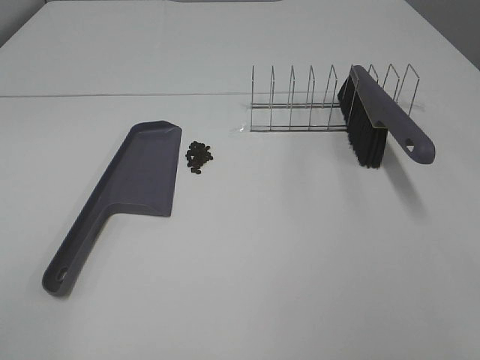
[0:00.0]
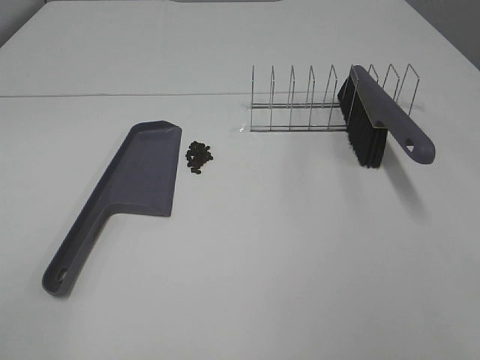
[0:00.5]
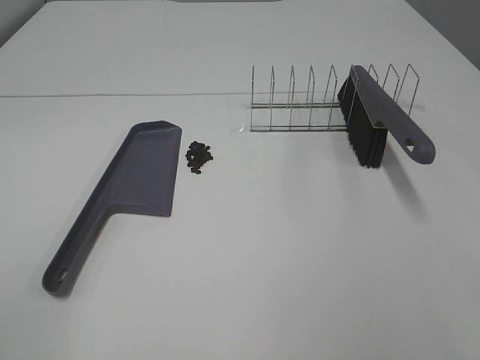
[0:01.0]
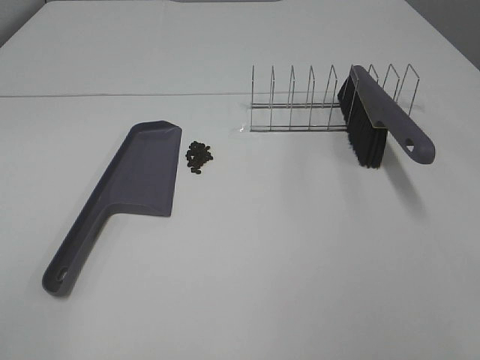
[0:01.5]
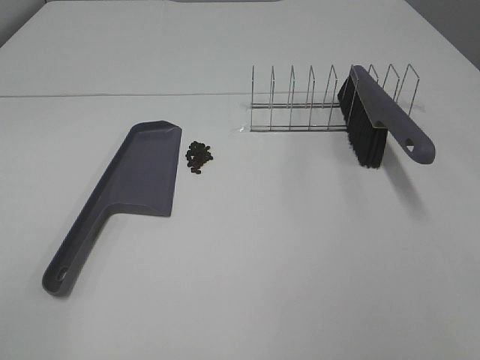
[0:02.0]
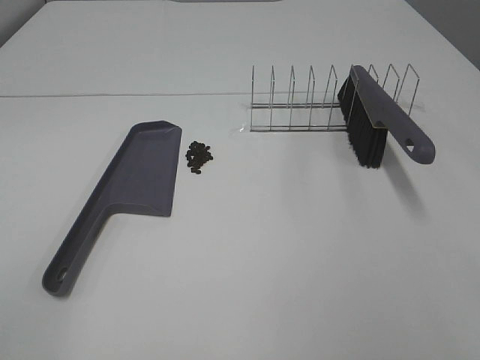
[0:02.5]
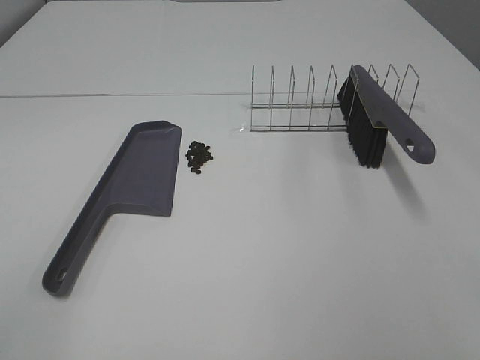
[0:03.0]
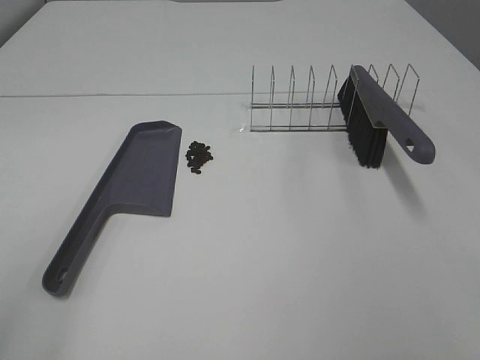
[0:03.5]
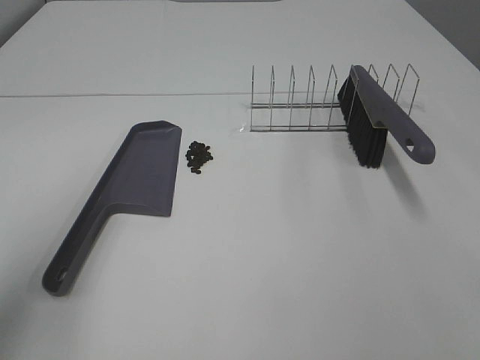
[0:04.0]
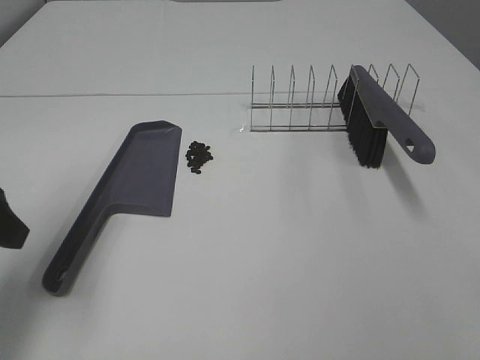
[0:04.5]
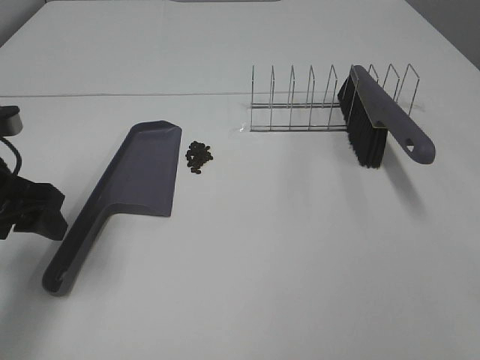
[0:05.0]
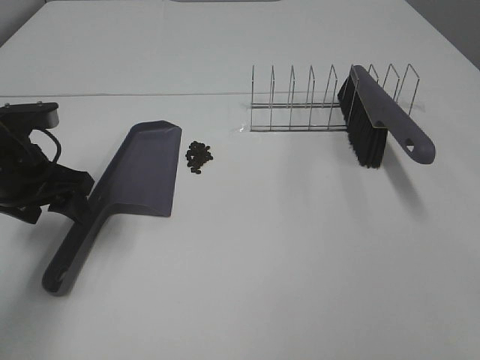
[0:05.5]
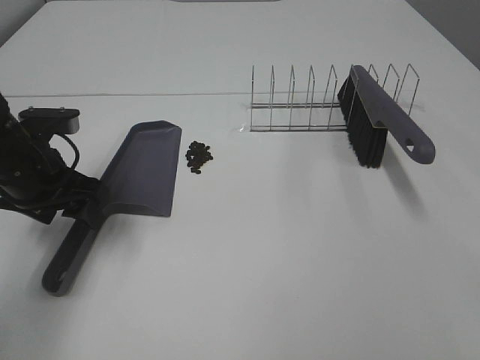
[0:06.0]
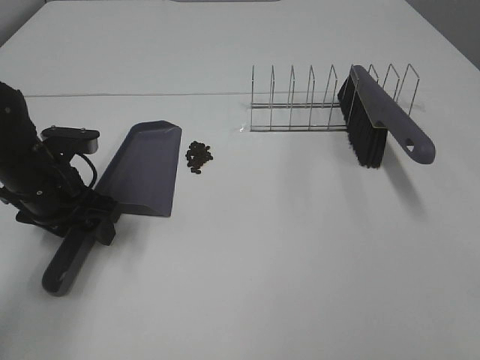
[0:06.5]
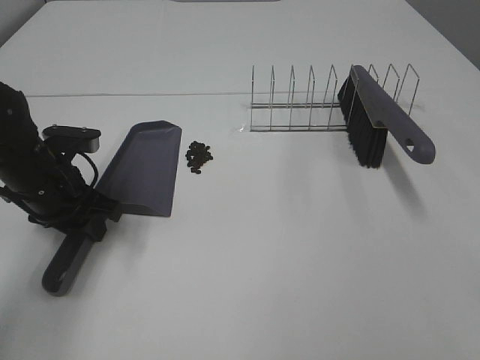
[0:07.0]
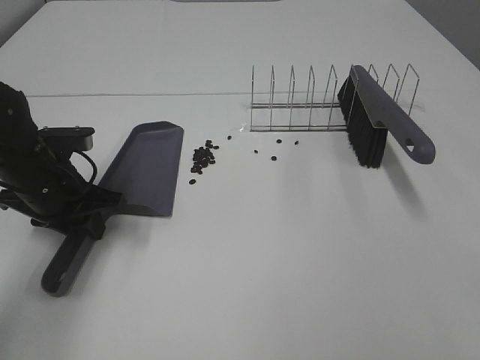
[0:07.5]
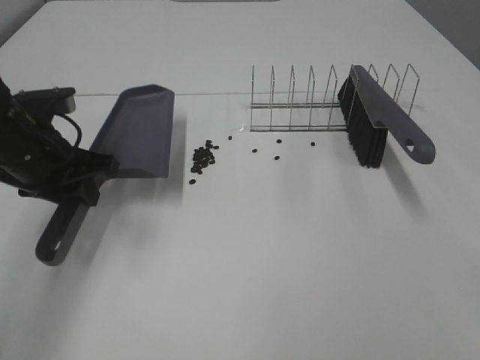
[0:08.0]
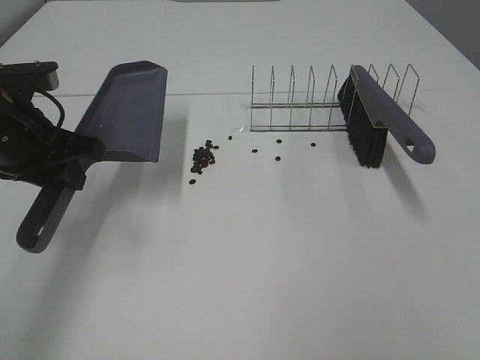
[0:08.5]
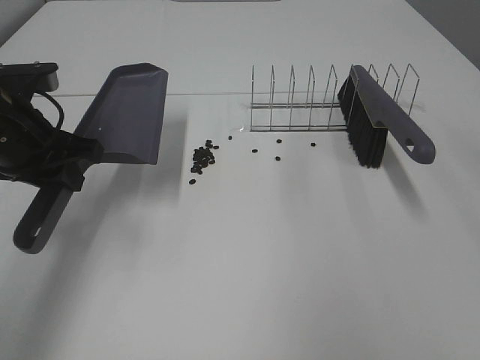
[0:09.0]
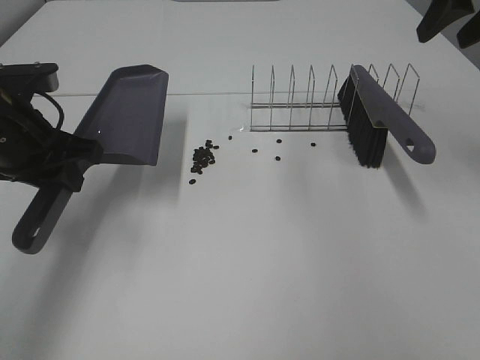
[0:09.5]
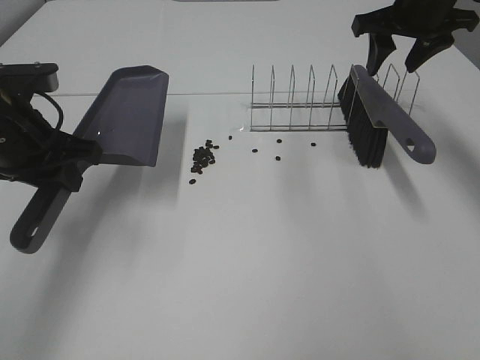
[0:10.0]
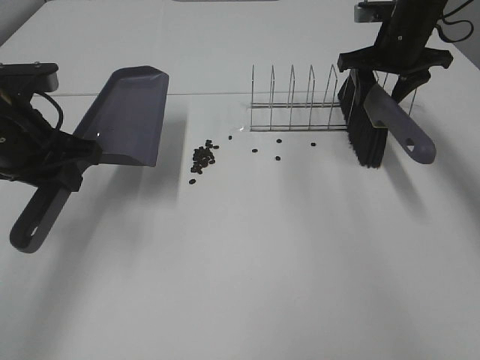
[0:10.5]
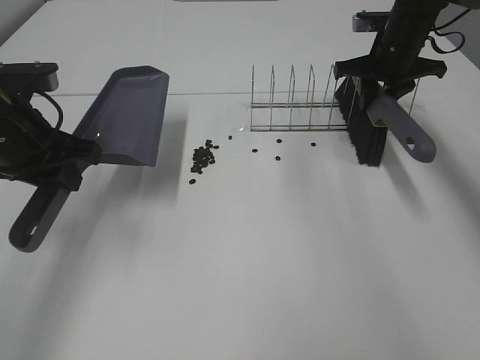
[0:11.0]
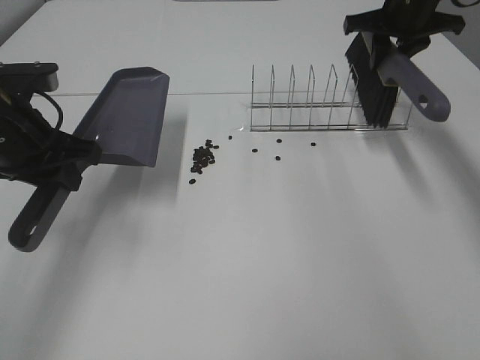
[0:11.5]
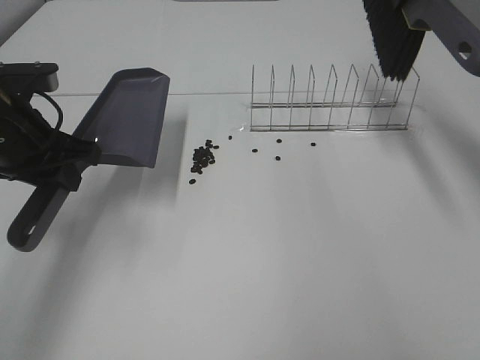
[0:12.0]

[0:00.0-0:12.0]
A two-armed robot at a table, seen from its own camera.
Task of the whole recording: Sweep Coffee Bean.
Step, 0:00.0 to 0:06.5: Left hand: grab the dustpan.
Step, 0:08.5 to 0:11.0: Right hand:grab the broom.
0:00.0 to 0:02.0: Neither gripper changes place.
0:02.0 to 0:04.0: The left gripper travels forward by some 15 cm.
0:04.0 to 0:06.0: The left gripper moves forward and downward, some 25 cm.
0:06.0 to 0:08.0: The left gripper closes its fingers.
0:08.0 to 0:10.0: The right gripper goes roughly 50 cm forward, and closes up.
0:10.0 to 0:12.0: The right gripper heads upward, covering roughly 10 cm, and closes up.

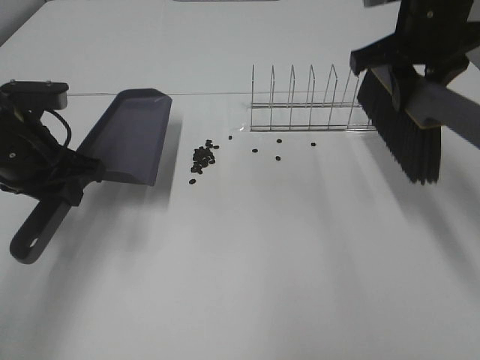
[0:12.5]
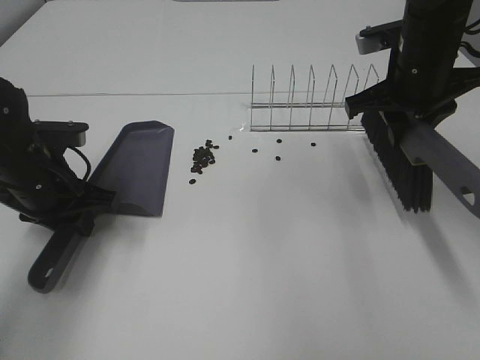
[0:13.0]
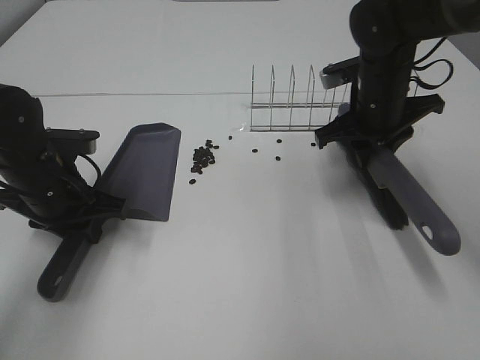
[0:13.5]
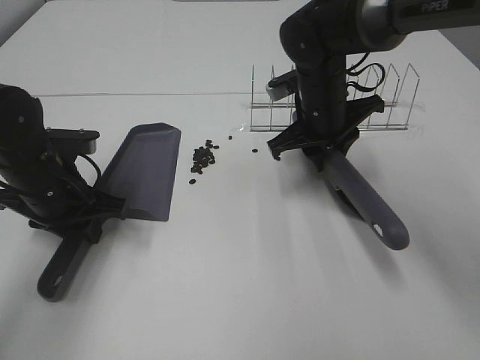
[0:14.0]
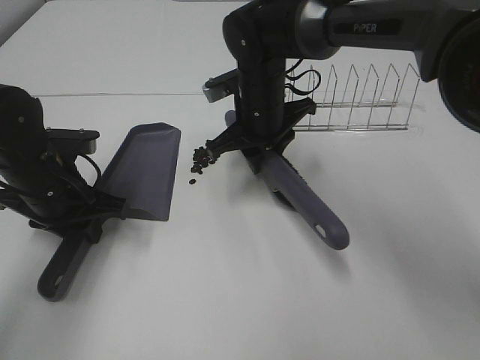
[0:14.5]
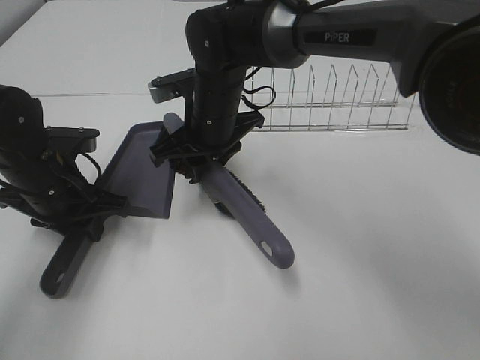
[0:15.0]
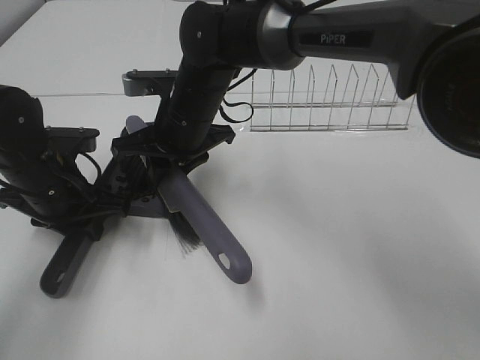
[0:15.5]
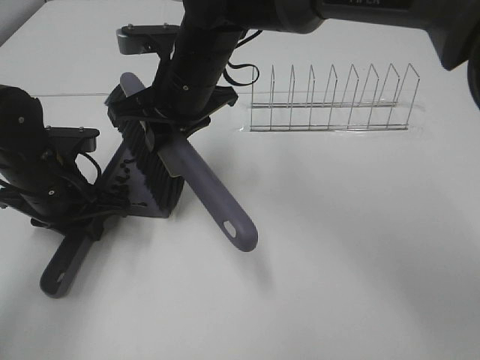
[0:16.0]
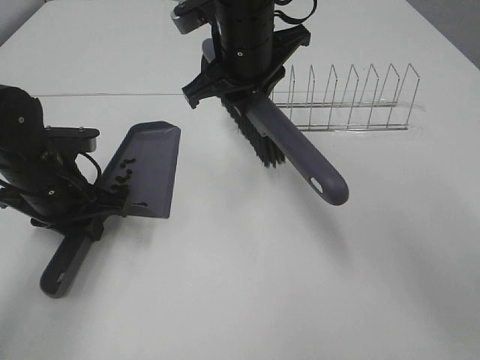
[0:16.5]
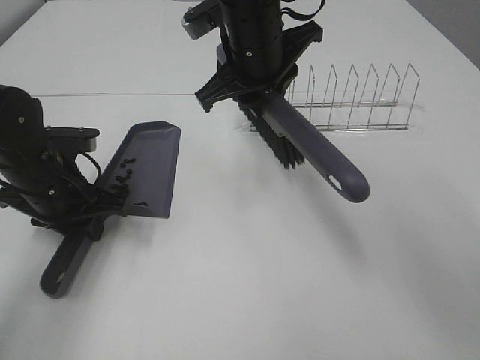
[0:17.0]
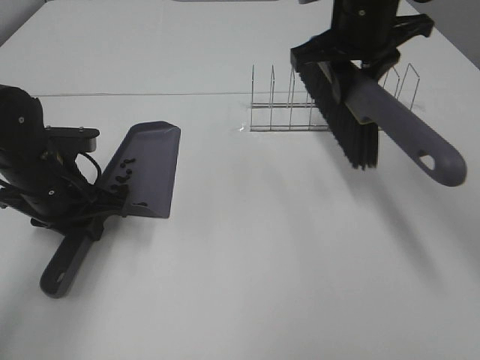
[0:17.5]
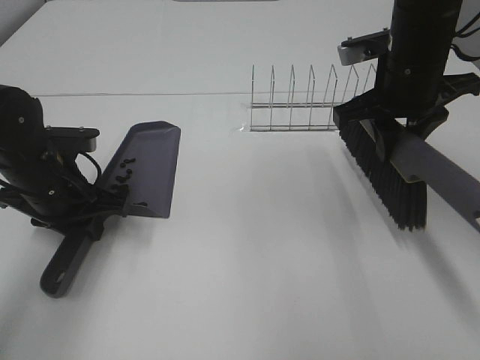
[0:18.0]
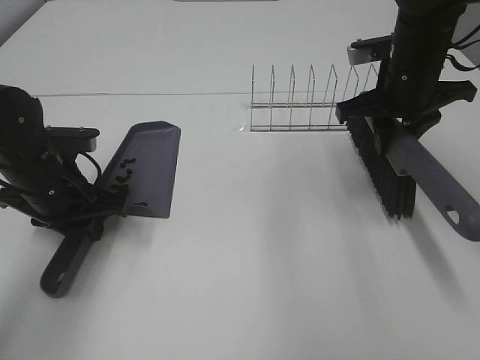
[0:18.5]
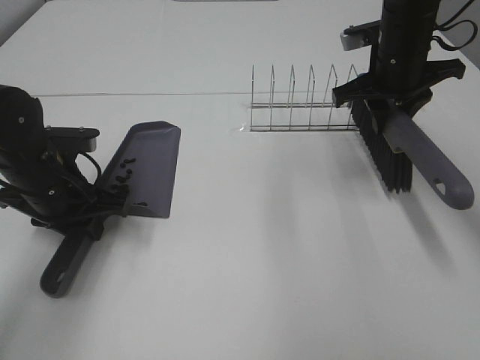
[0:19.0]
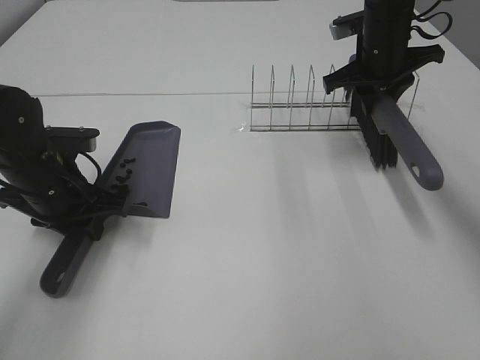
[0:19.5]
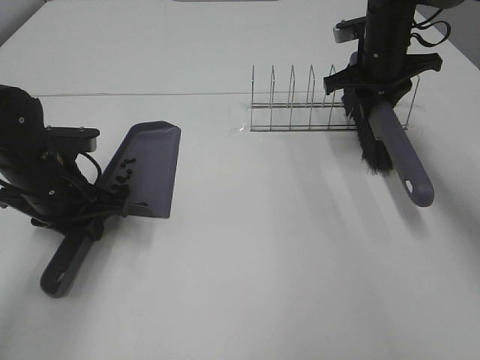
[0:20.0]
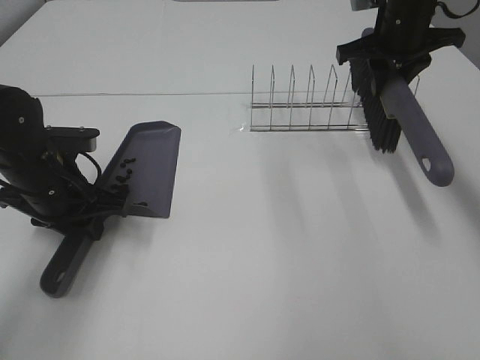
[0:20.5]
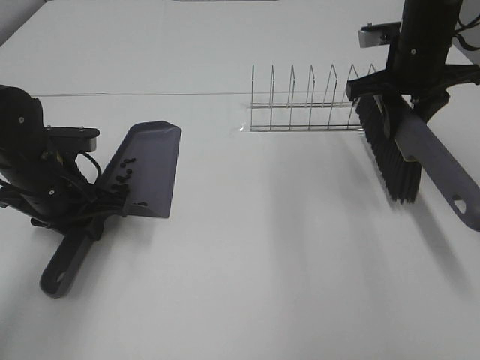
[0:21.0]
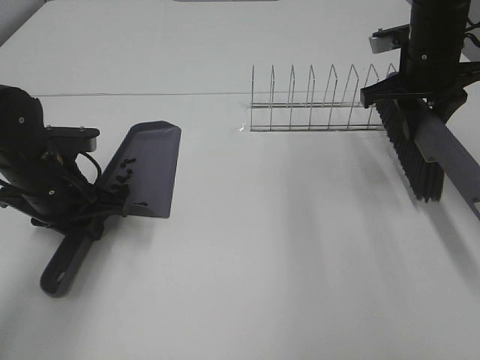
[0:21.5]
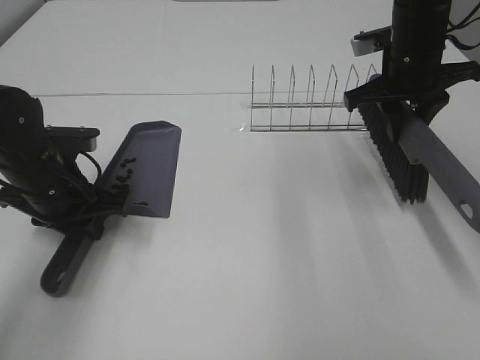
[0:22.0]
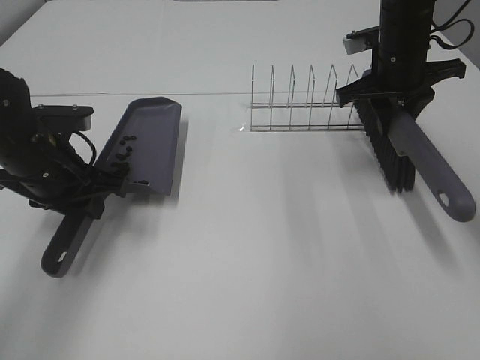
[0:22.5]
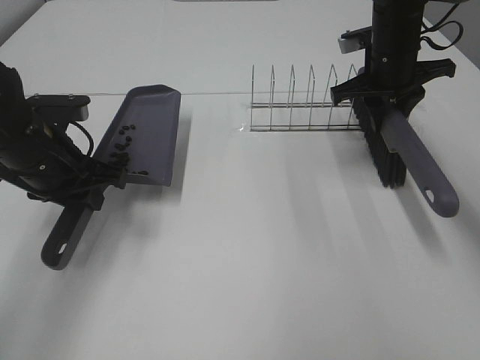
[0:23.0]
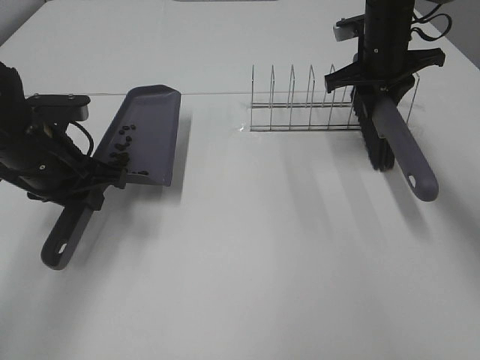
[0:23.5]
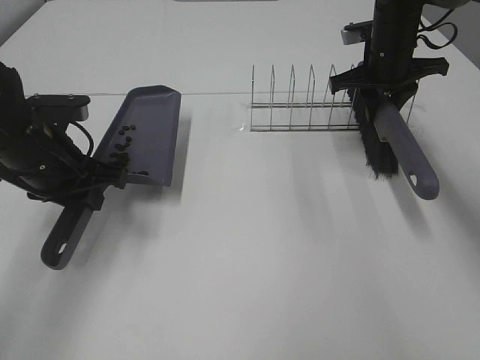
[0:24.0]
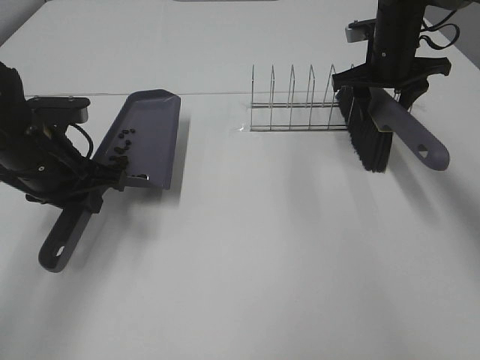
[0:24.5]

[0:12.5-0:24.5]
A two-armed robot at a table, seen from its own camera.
Task of the whole recording: Sweep Coffee Bean.
Step, 0:12.5 to 0:16.0: Right hand:sweep the coffee beans into the dustpan.
0:12.5 to 0:14.5: The left gripper is displaced downward by roughly 5 cm. Meanwhile the right gripper is displaced to the left and downward by roughly 20 cm.
0:14.5 to 0:16.5: The right gripper travels upward by roughly 10 cm.
0:16.5 to 0:18.5: The right gripper heads to the right, covering approximately 20 cm.
0:18.5 to 0:20.5: The right gripper goes some 10 cm forward.
0:20.5 to 0:22.5: The right gripper changes place by roughly 5 cm.
0:22.5 to 0:24.5: The right gripper moves approximately 5 cm, and opens up.

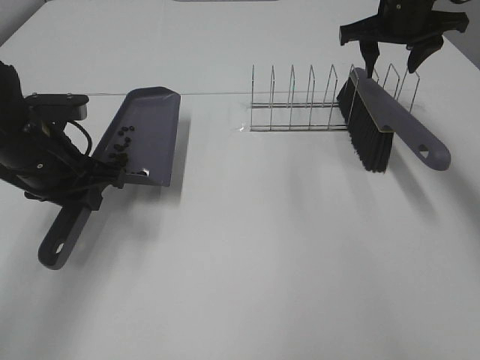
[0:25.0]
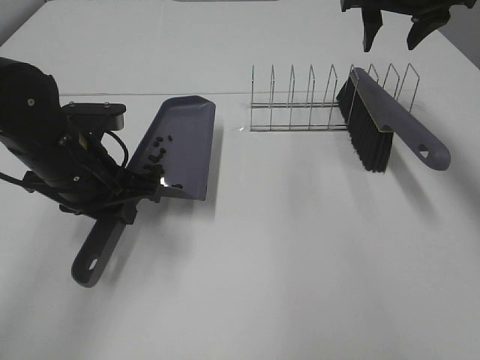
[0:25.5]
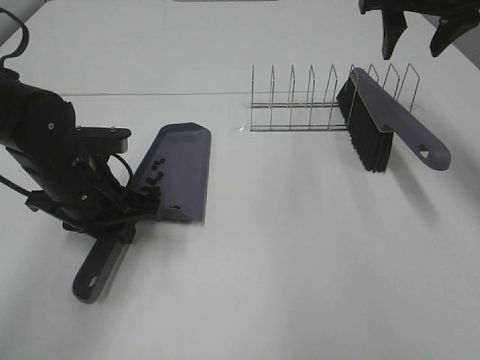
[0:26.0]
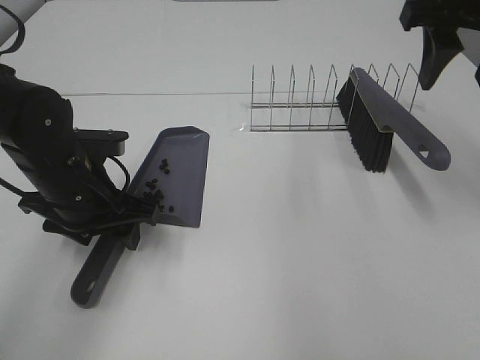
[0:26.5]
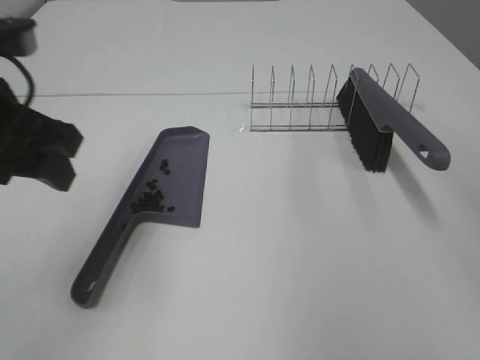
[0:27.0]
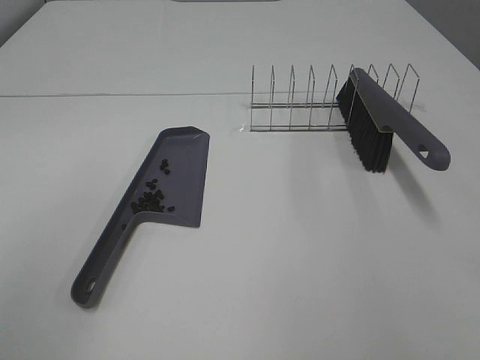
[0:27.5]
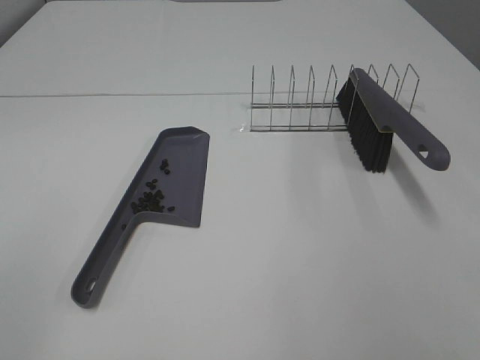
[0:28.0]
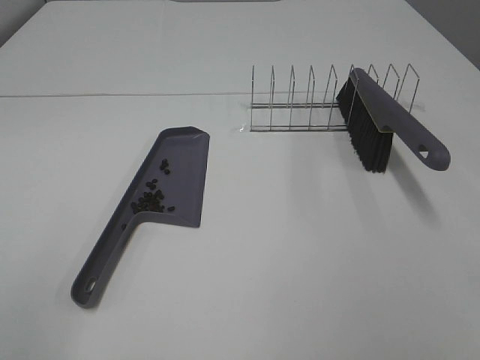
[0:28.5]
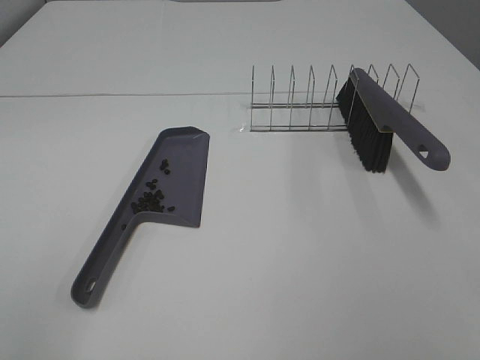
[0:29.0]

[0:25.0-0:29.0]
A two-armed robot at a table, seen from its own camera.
Task of the whole recording: Sweep Coffee Bean.
Step, 0:25.0 to 0:26.5: Left hand:place the dustpan on the table.
0:25.0 to 0:27.0: The right gripper shifts roughly 30 cm backward. The left gripper heads upward and backward, covering about 15 cm, and opens.
0:27.0 to 0:29.0: The left gripper is displaced backward by some 20 cm.
